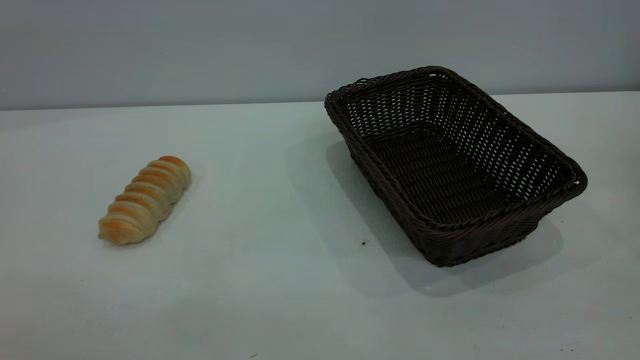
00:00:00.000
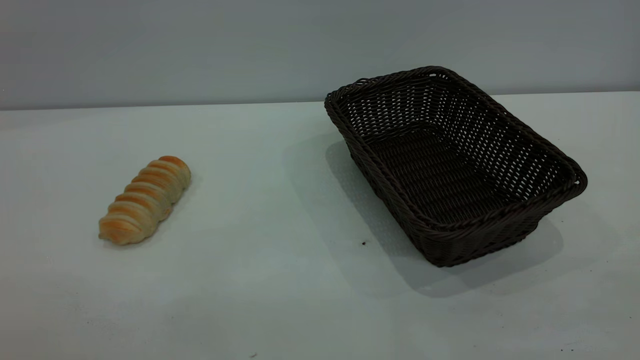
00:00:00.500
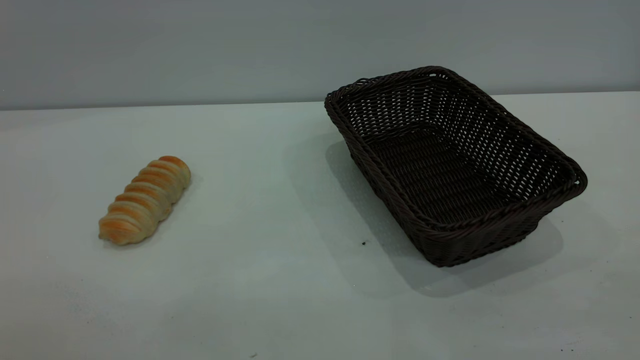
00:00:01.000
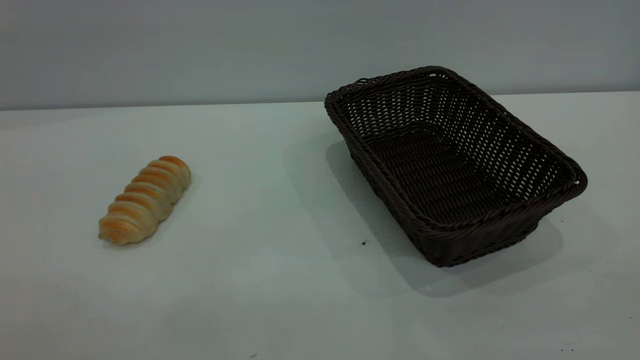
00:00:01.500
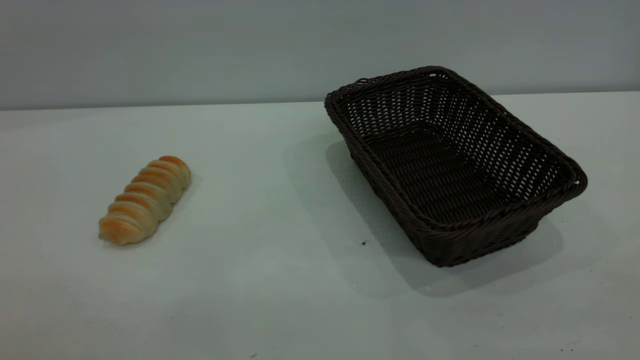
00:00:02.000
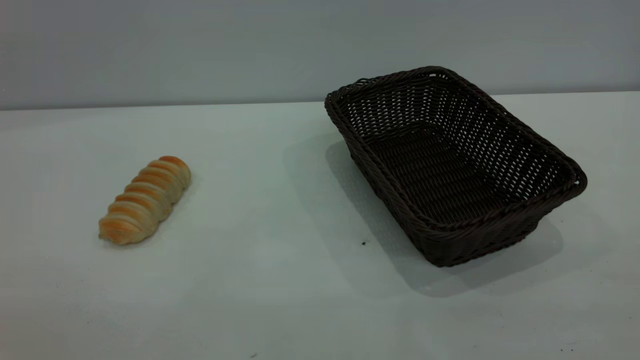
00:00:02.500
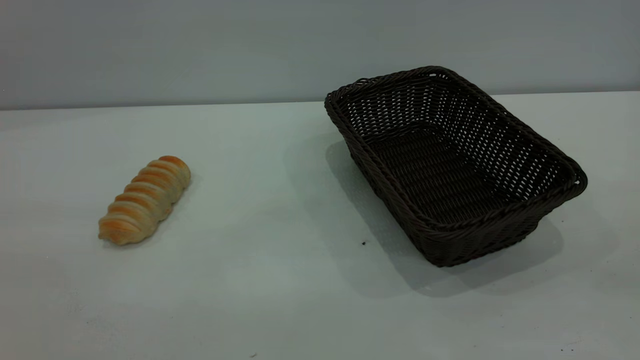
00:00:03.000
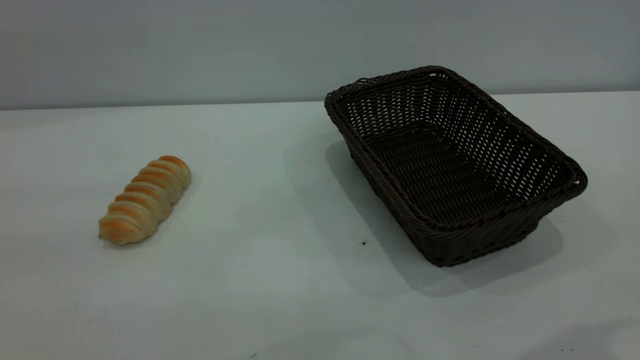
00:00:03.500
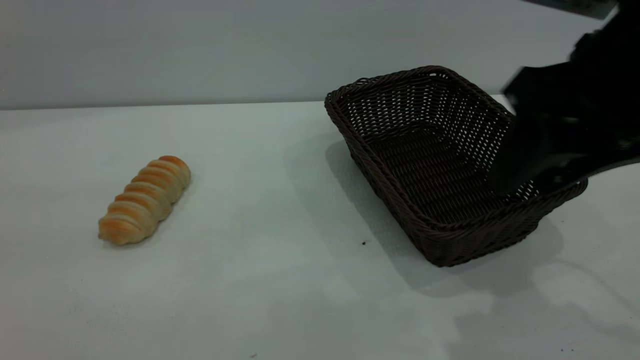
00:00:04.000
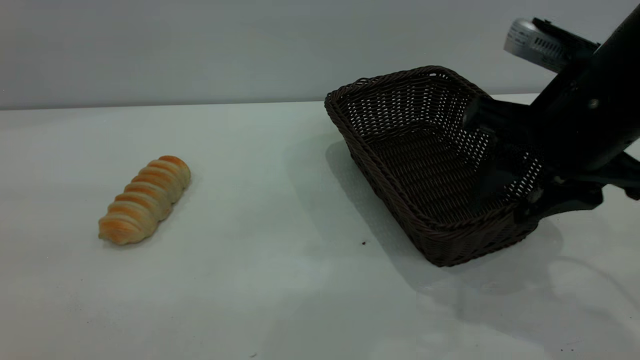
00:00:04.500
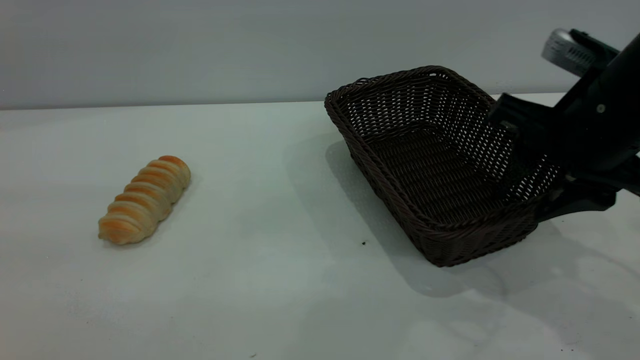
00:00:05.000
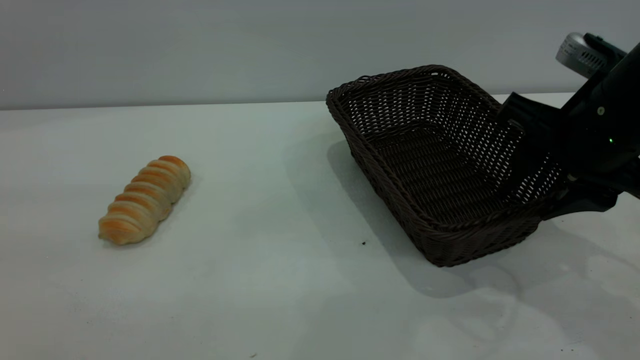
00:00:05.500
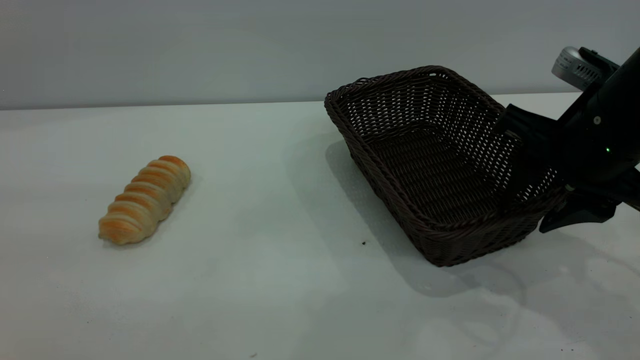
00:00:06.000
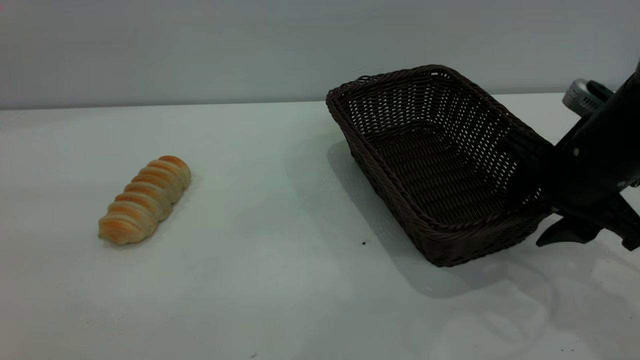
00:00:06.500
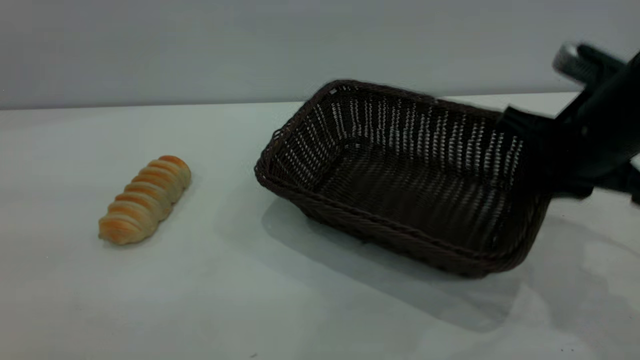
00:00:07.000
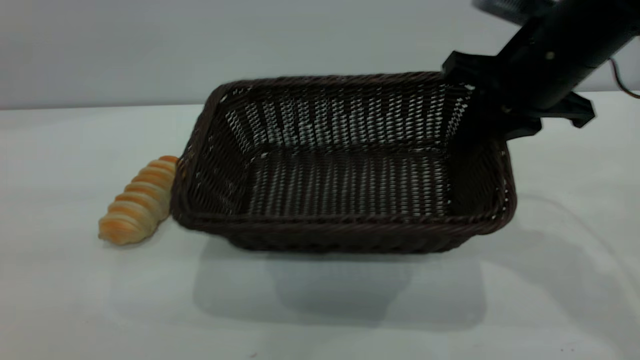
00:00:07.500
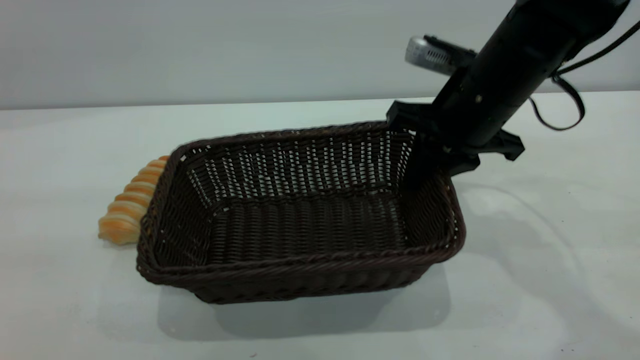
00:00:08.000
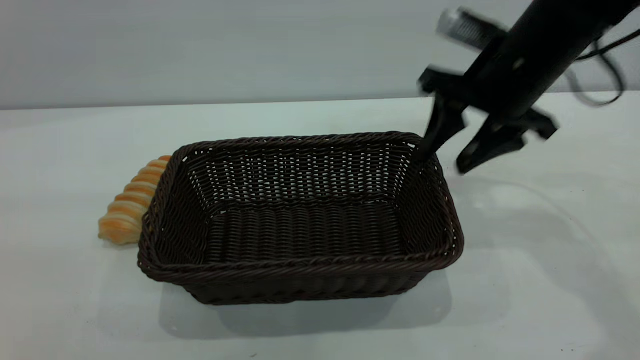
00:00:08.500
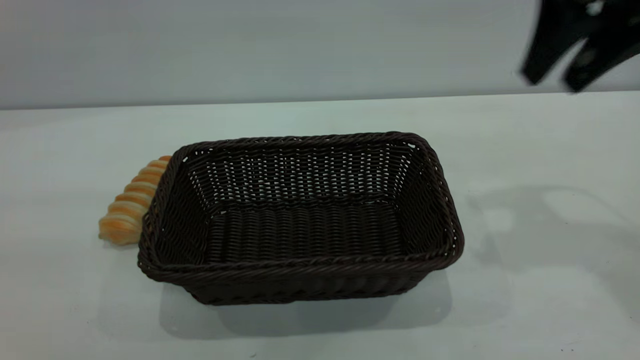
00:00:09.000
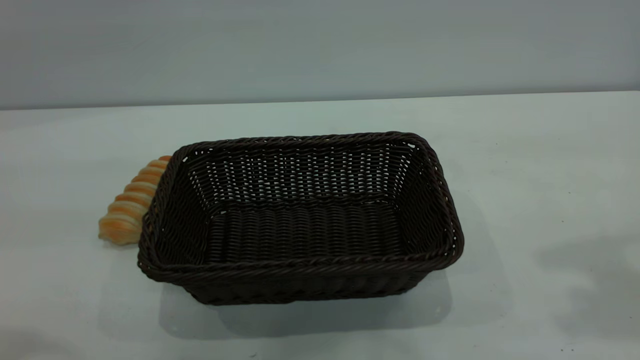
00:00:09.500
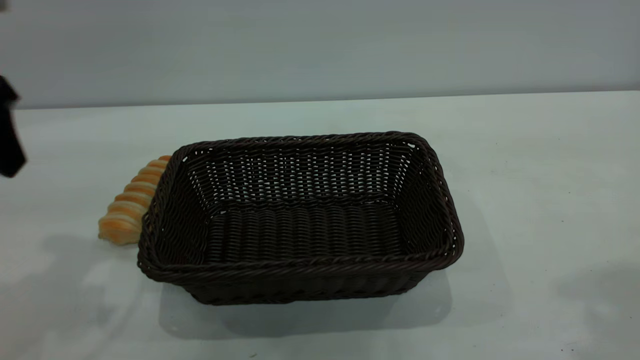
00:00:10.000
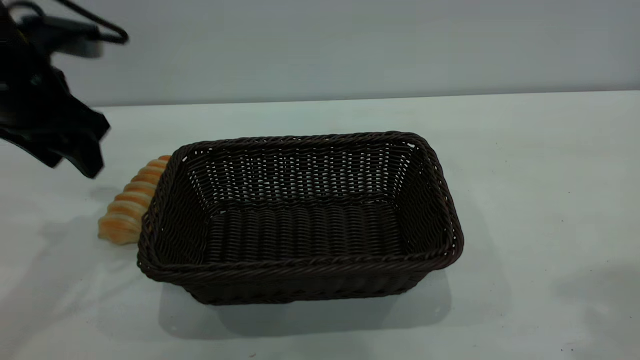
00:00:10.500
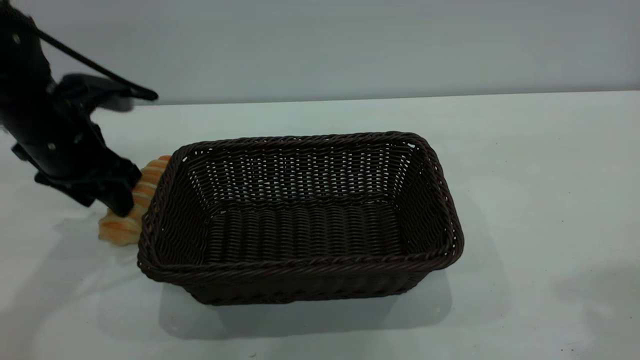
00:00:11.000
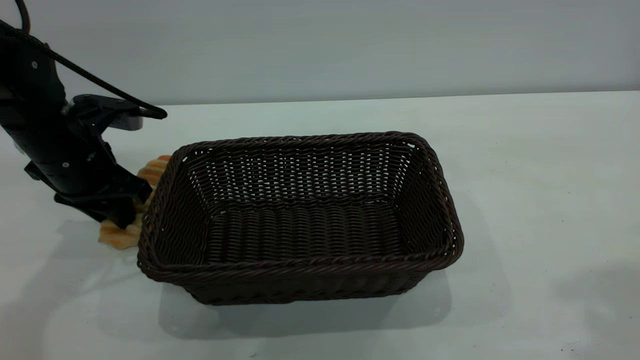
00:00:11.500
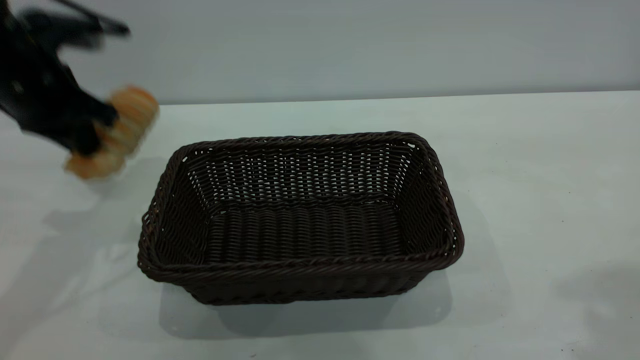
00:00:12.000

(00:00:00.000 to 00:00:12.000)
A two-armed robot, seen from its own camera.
Task of the whole recording: One hand grasps the black basket and places it in the middle of the table, while the other hand picks up the long bread and puts it into the black basket.
Step, 00:00:00.000 - 00:00:08.500: Move the basket to the center of view.
00:00:00.000 - 00:00:02.000: Neither gripper changes place.
00:00:02.000 - 00:00:04.000: The right gripper heads forward and to the left, covering some 30 cm.
00:00:04.000 - 00:00:06.000: The right gripper heads downward, covering roughly 10 cm.
00:00:06.000 - 00:00:08.000: The right gripper goes about 10 cm forward and to the left, and closes its fingers.
00:00:08.000 - 00:00:10.000: The right gripper moves upward, backward and to the right, approximately 35 cm, and opens, while the left gripper heads forward and downward, covering some 25 cm.
00:00:10.000 - 00:00:12.000: The left gripper goes approximately 10 cm forward, moves approximately 15 cm downward and comes back, and closes up.

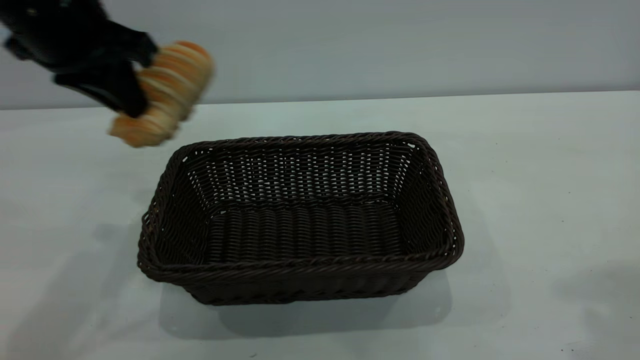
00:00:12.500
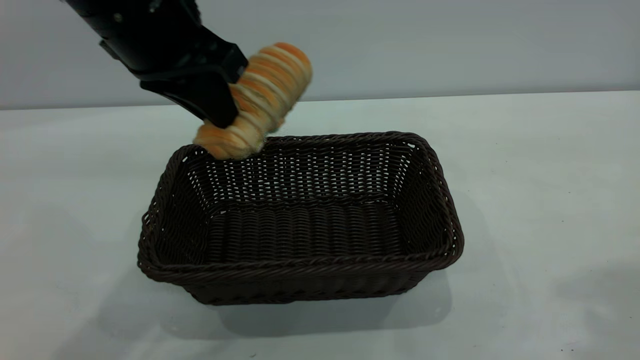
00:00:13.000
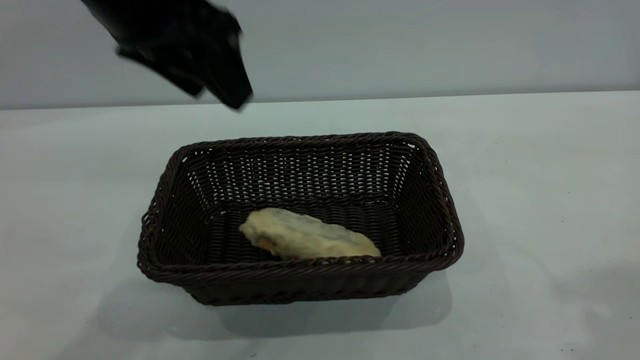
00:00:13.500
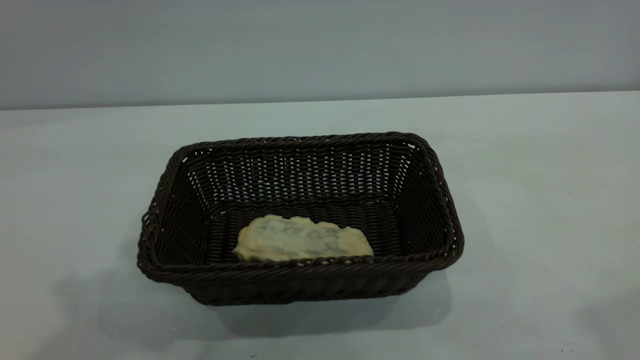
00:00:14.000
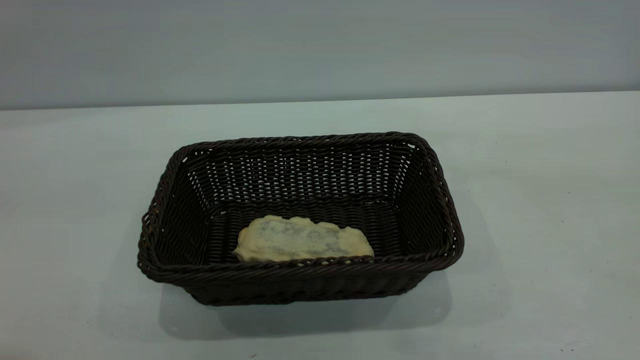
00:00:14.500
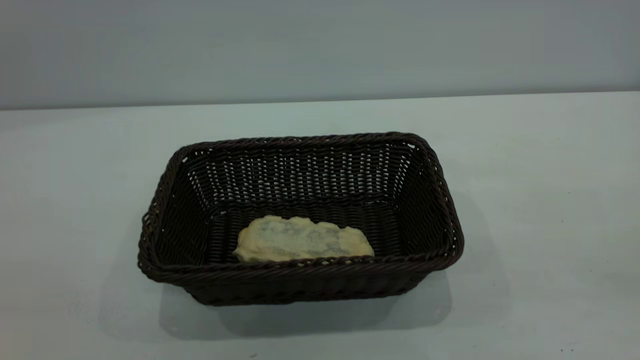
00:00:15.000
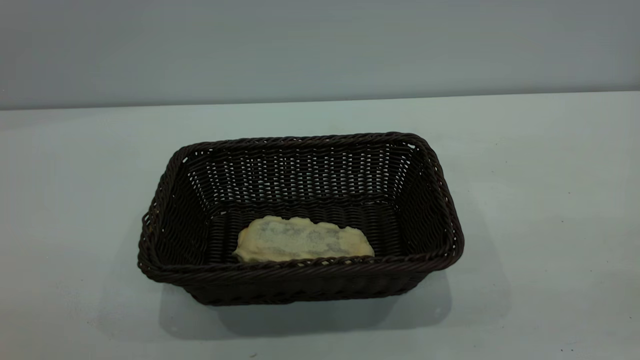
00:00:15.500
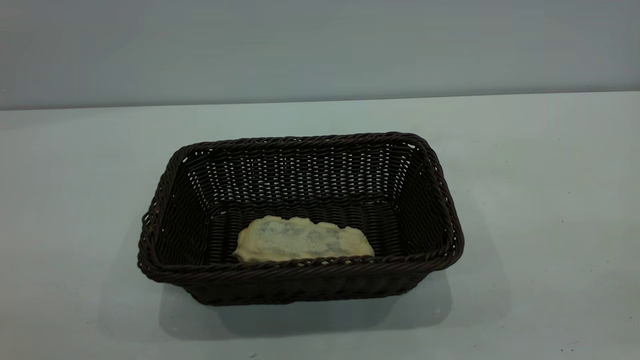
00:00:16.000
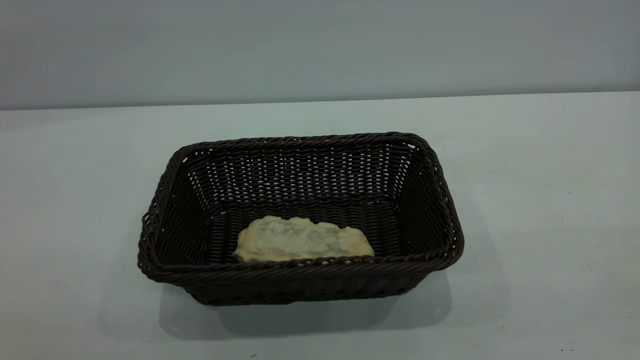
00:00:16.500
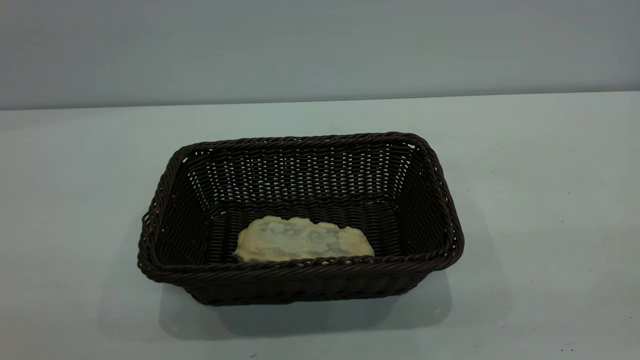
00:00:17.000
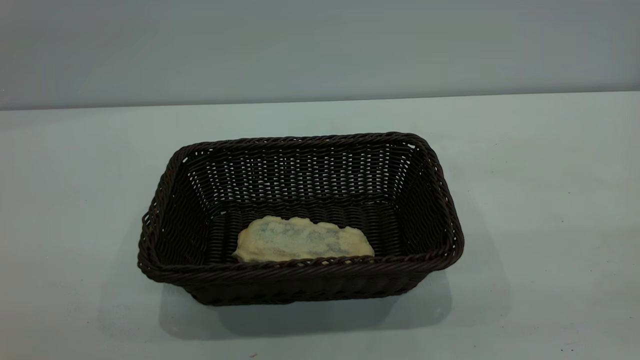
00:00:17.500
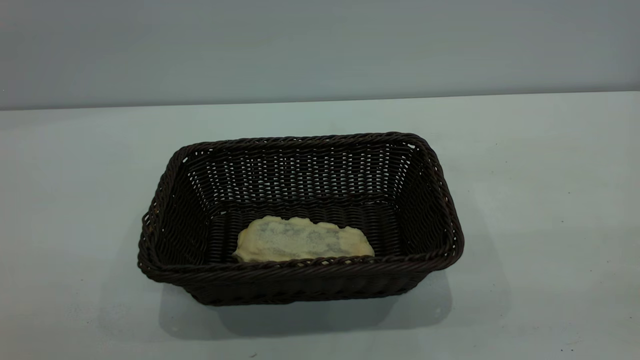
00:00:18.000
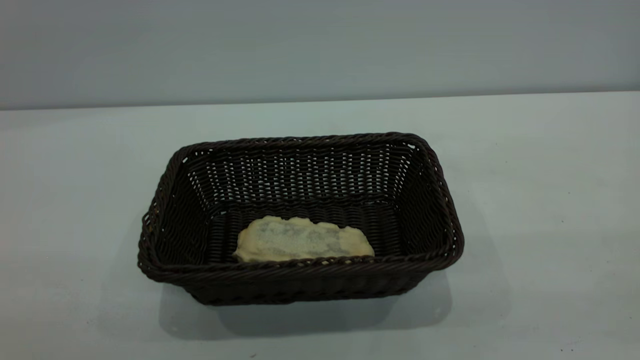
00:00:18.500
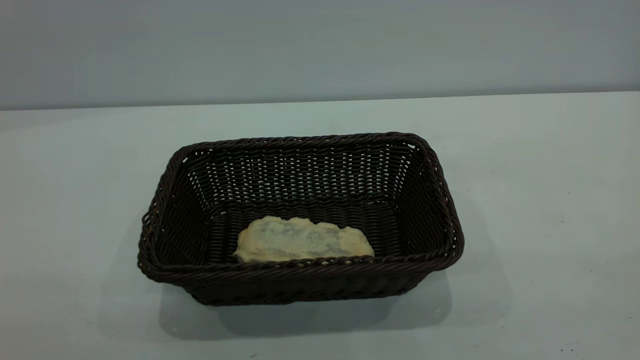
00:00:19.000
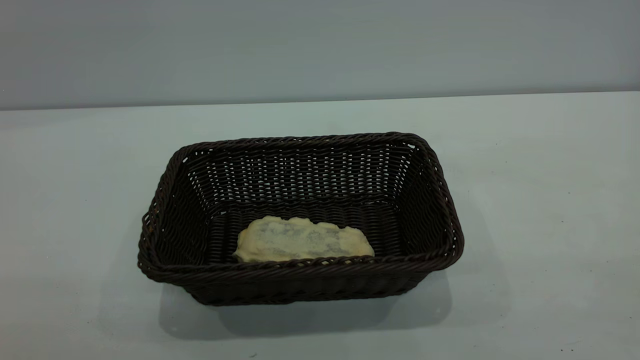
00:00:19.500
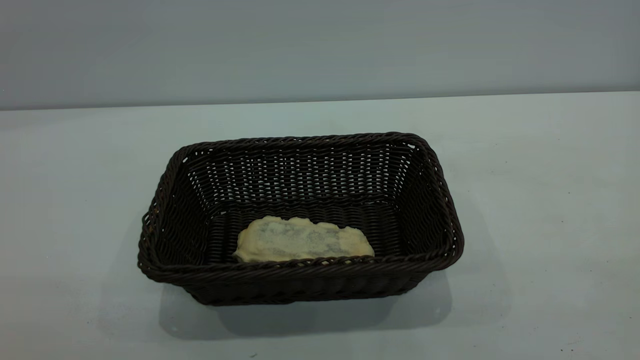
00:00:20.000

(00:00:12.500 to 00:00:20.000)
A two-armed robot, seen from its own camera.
Task of the whole recording: One hand grasps the black basket and places it in the middle of the table, while the other hand picks up the long bread and puts it into the black basket.
00:00:12.500 - 00:00:14.500: The right gripper is displaced backward by about 10 cm. Meanwhile the left gripper travels backward and upward by some 30 cm, and opens up.
